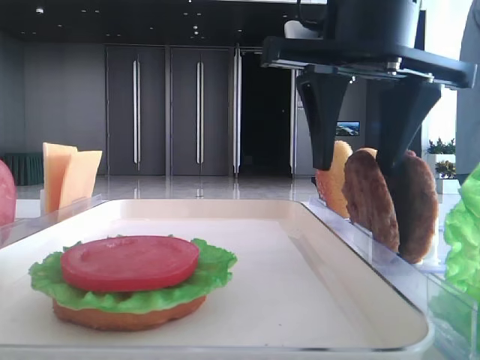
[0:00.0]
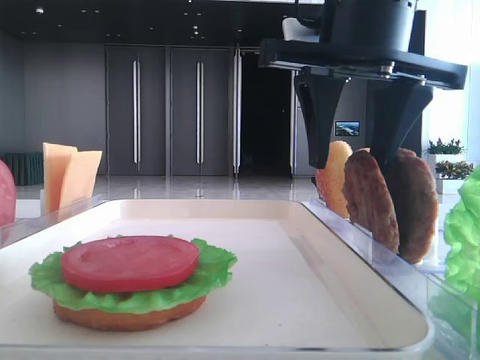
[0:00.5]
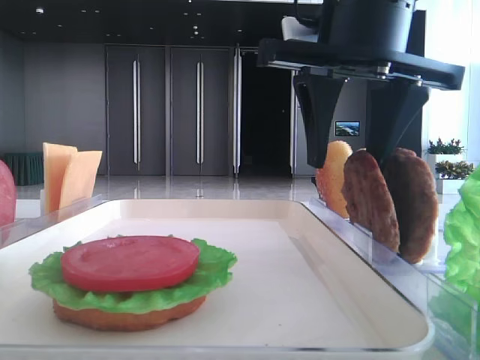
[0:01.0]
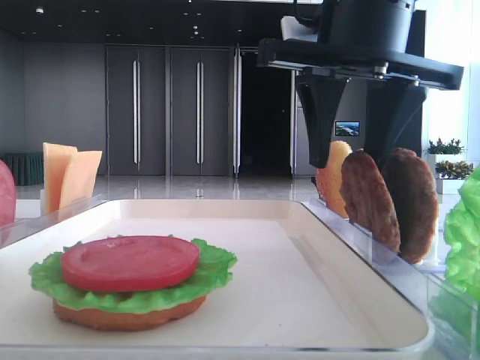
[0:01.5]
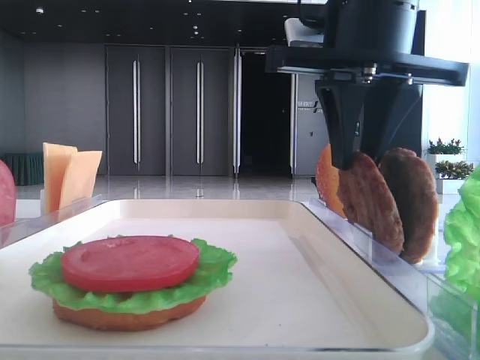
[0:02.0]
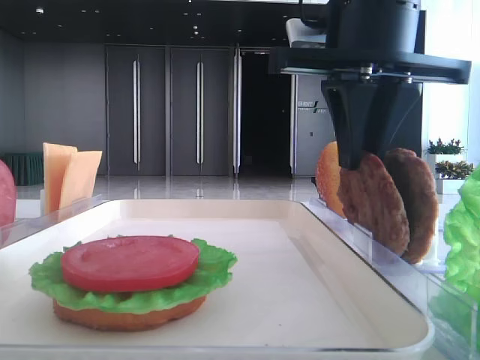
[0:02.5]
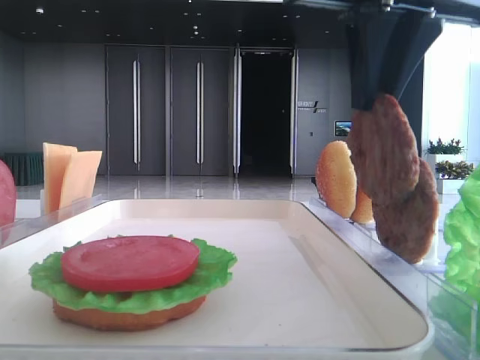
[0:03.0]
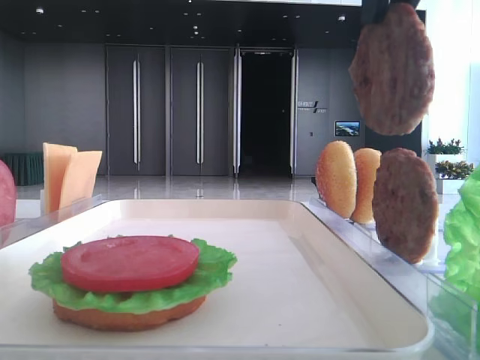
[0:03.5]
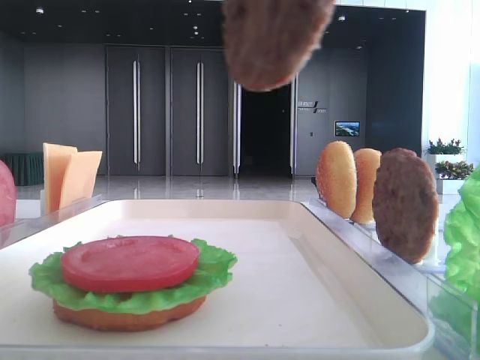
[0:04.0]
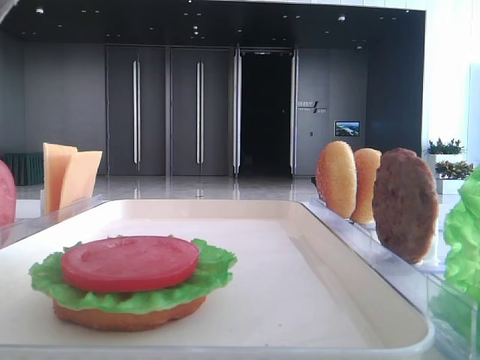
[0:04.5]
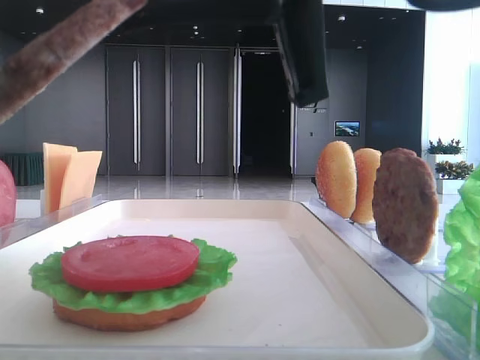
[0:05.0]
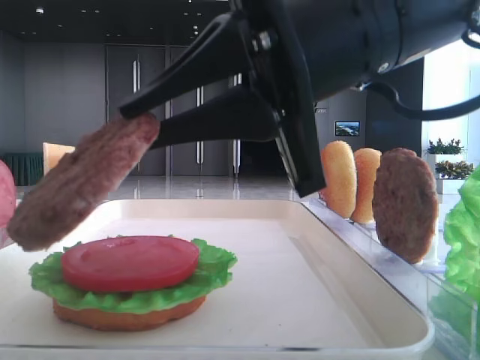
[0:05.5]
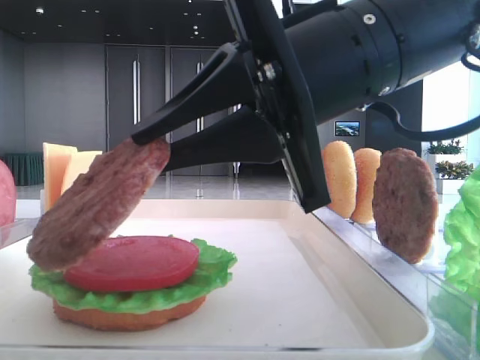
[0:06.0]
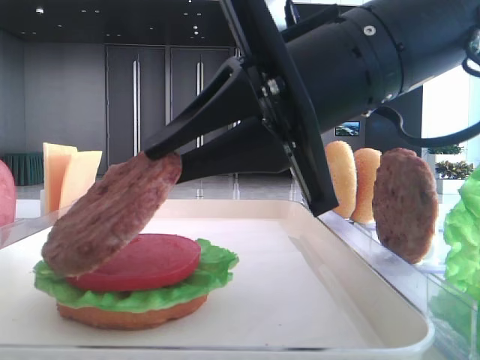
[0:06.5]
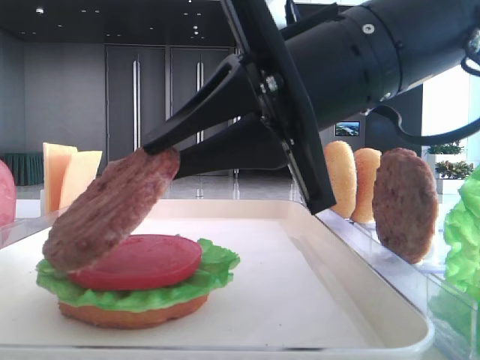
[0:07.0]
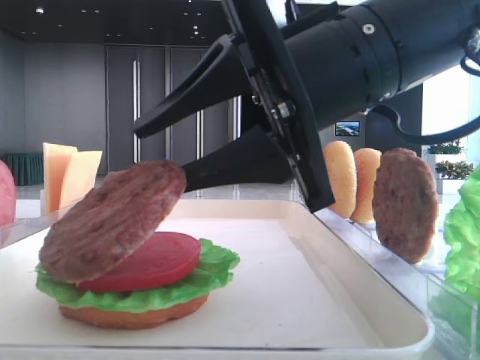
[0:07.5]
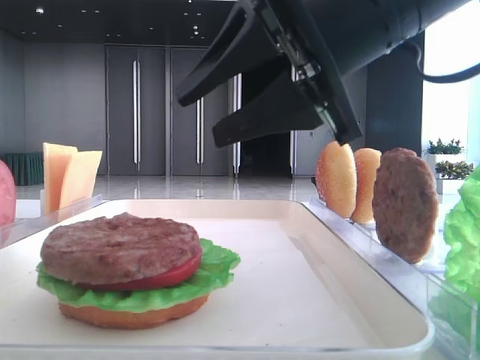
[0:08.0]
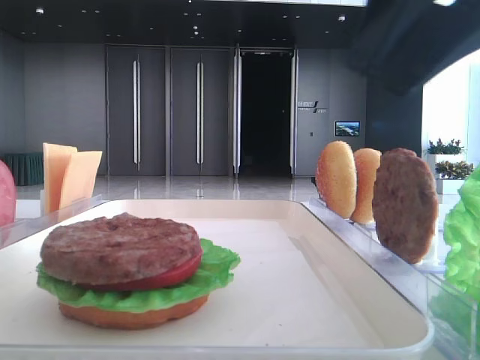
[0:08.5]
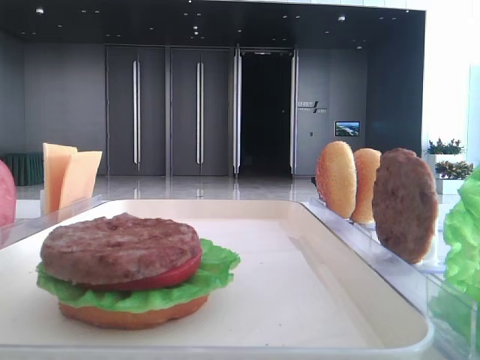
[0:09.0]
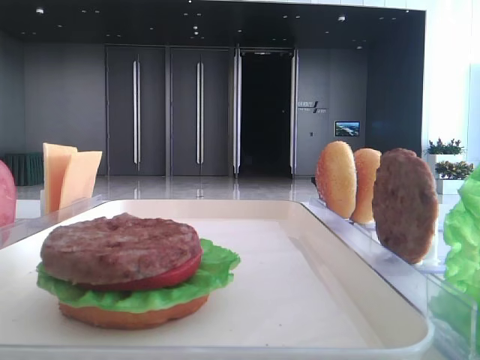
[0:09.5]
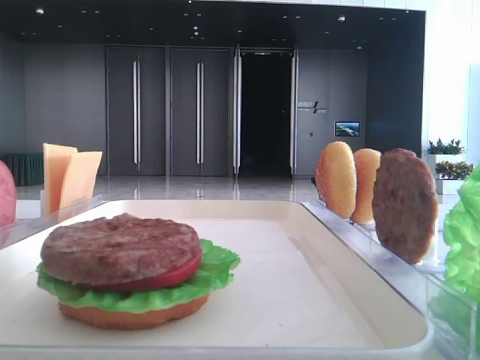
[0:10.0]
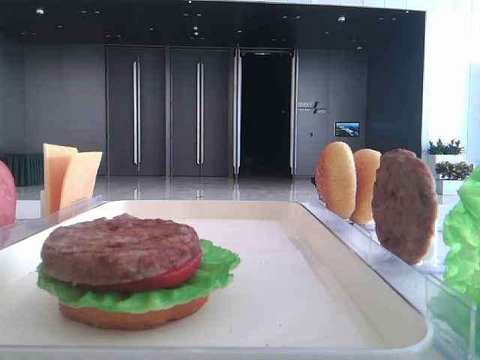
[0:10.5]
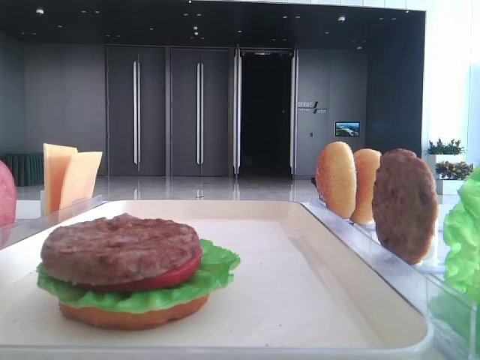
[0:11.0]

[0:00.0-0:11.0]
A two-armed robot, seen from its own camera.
Step, 0:00.0 to 0:02.5: Grab the patty with the right hand.
Step, 0:03.0 to 0:07.5: Place the patty on the tomato slice with the right hand.
0:00.0 to 0:02.0: The right gripper closes.
0:02.0 to 0:03.5: The right gripper travels upward and backward by some 10 cm.
0:03.5 to 0:05.5: The right gripper moves downward, approximately 15 cm.
0:05.5 to 0:07.5: The right gripper opens up.
0:07.5 to 0:09.0: The right gripper moves to the right and upward, roughly 25 cm.

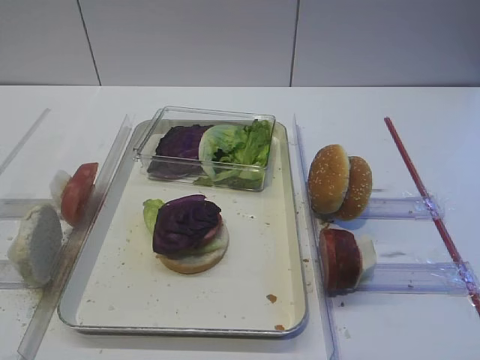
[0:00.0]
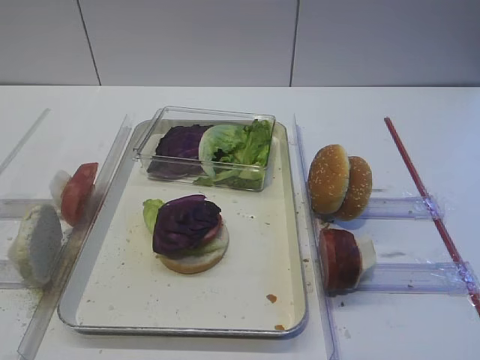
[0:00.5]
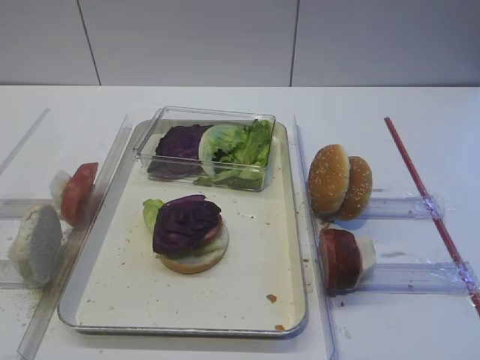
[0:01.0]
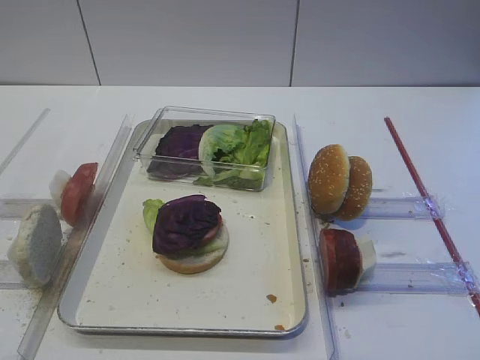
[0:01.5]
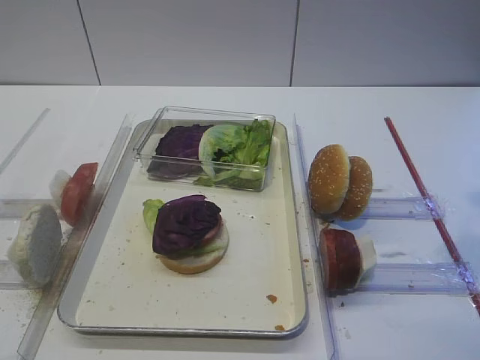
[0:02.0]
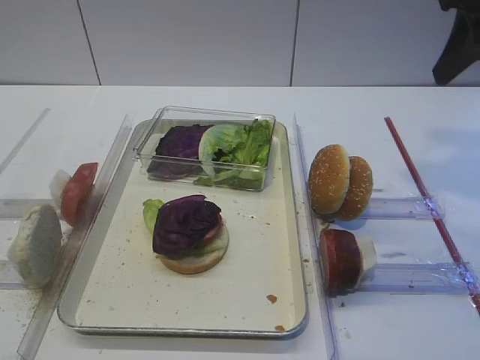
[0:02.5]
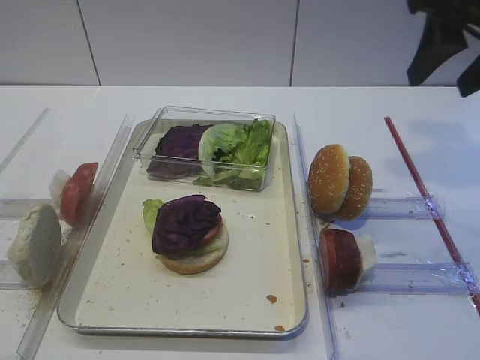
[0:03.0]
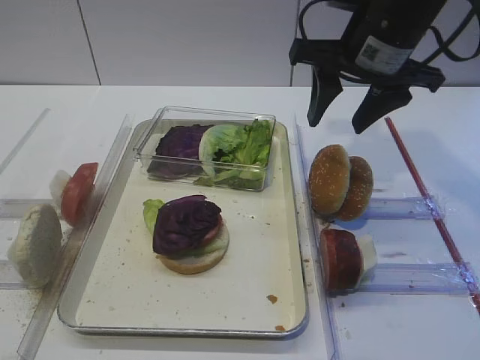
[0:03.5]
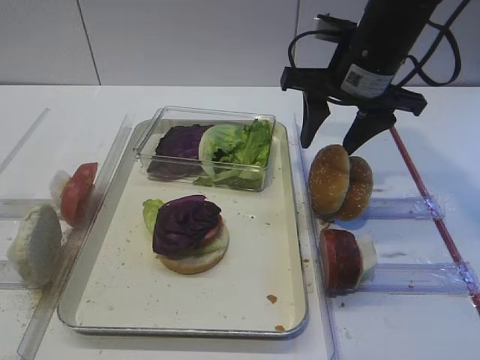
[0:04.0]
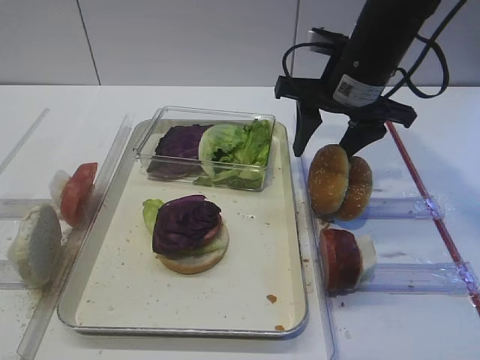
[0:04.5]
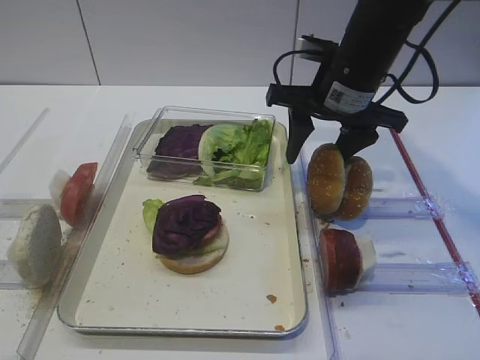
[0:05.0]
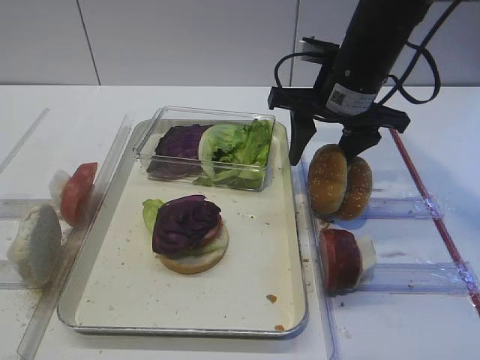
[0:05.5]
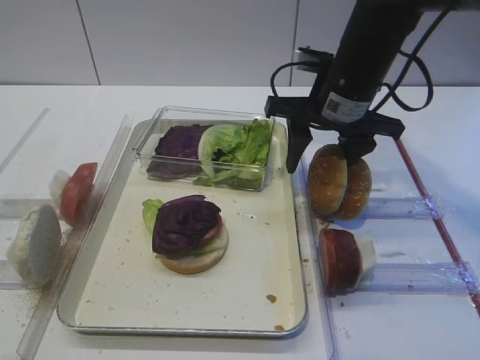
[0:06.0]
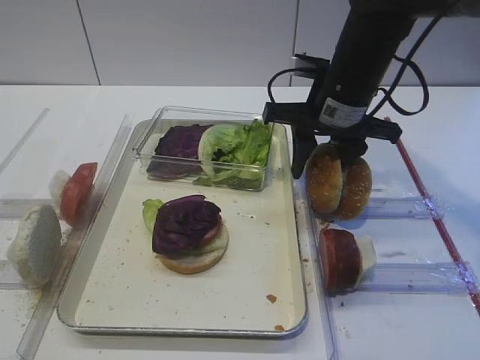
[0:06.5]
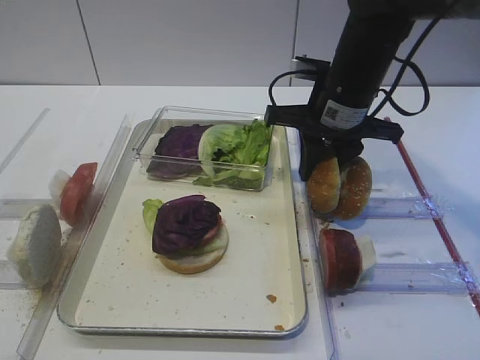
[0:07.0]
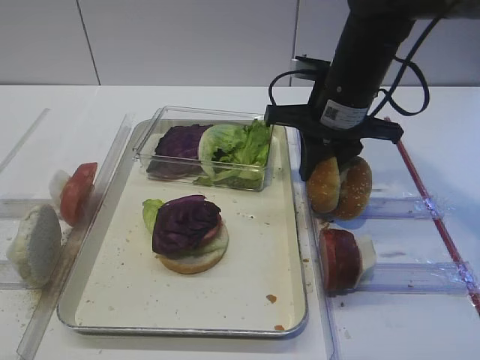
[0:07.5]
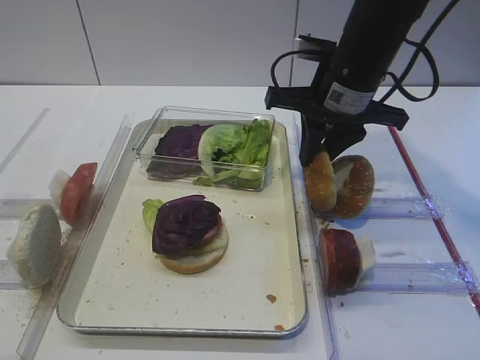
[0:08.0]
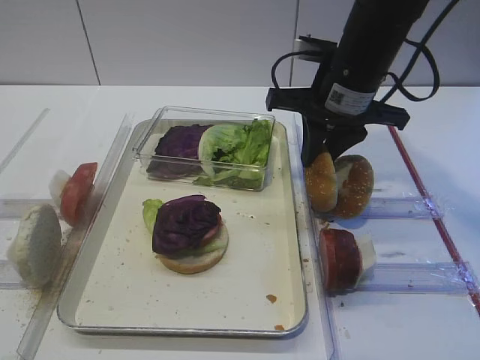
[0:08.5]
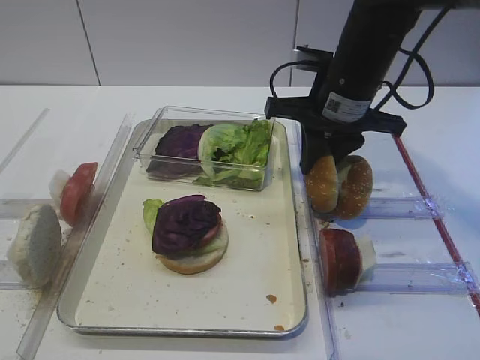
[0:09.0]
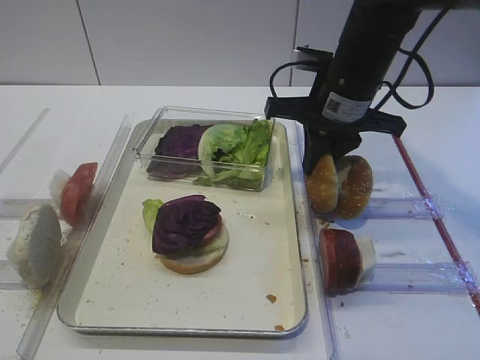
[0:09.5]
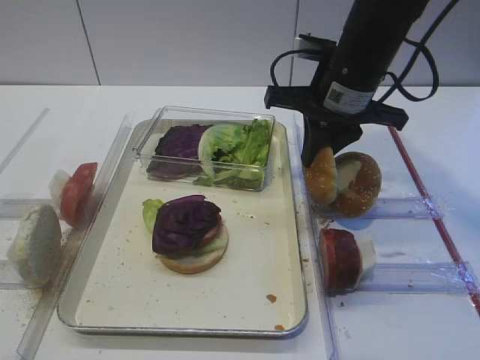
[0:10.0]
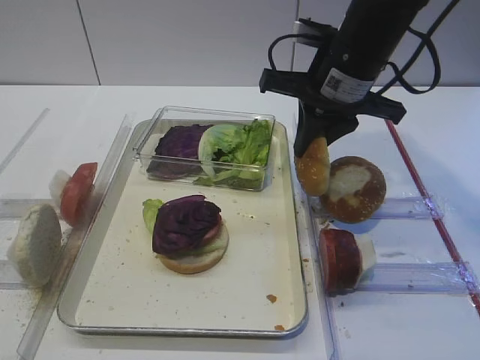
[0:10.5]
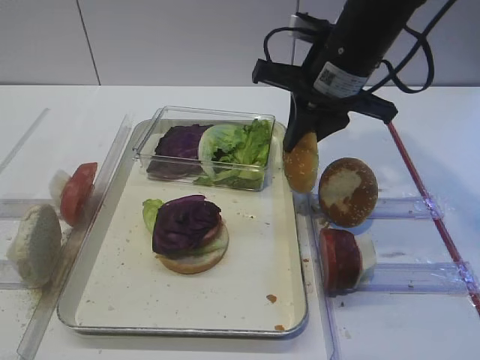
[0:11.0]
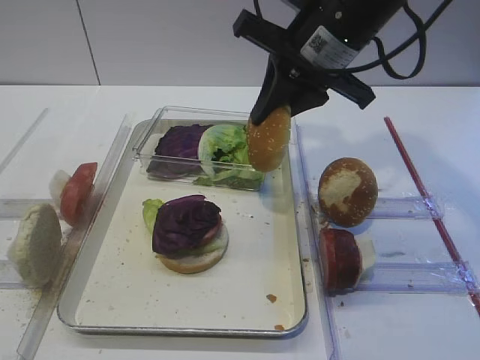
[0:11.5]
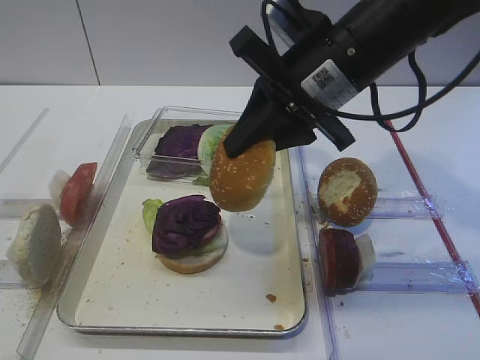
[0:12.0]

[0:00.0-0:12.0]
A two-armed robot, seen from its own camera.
Step, 0:00.0 to 0:11.0: Pick up the hamburger lid with the right gripper.
0:02.0 to 0:04.0: The right gripper heads forward and to the left, covering approximately 25 cm.
0:04.0 to 0:06.0: There are only small adjustments of the grippers.
0:06.0 to 0:08.0: The right gripper closes up.
0:08.0 to 0:10.0: Neither gripper changes place.
0:10.0 to 0:12.0: The right gripper is displaced backward by about 5 cm.

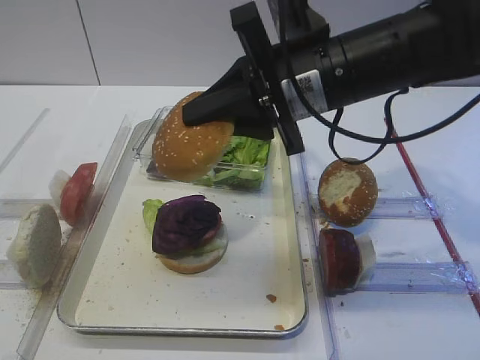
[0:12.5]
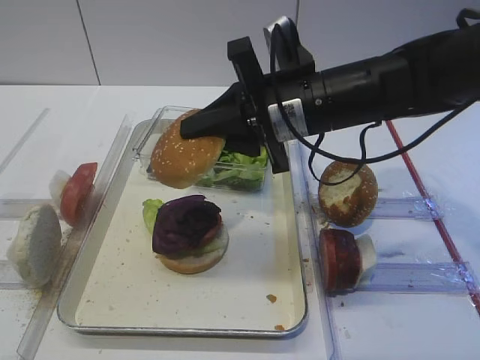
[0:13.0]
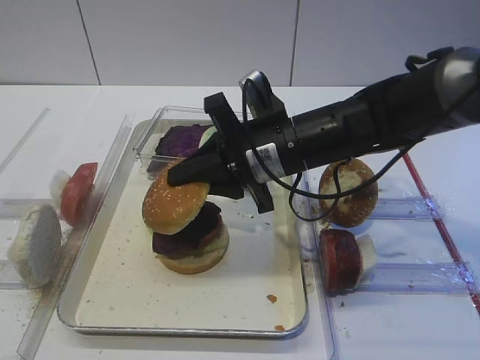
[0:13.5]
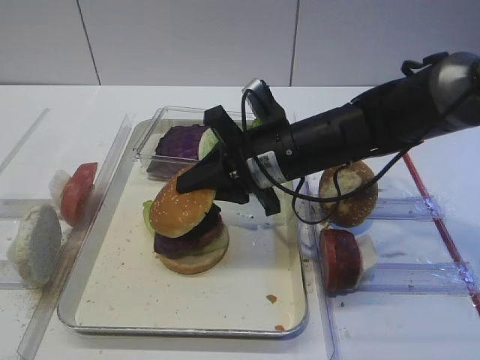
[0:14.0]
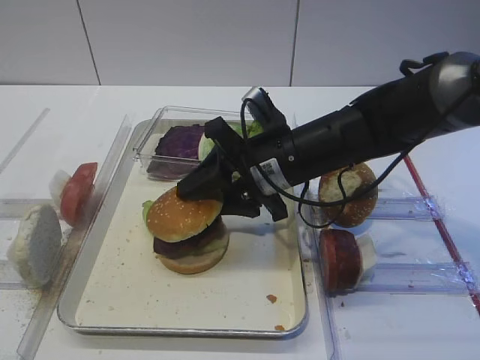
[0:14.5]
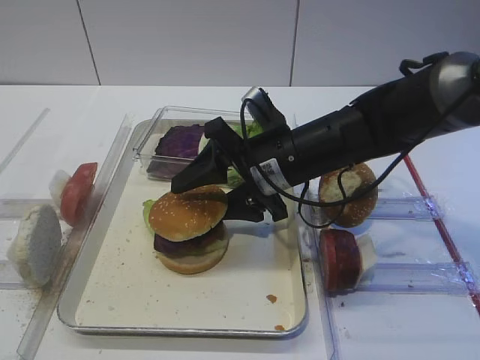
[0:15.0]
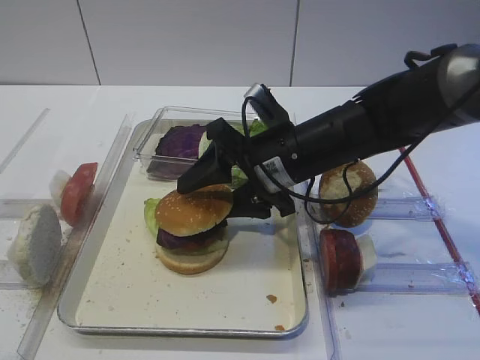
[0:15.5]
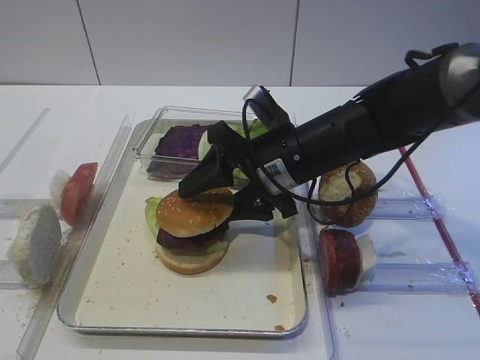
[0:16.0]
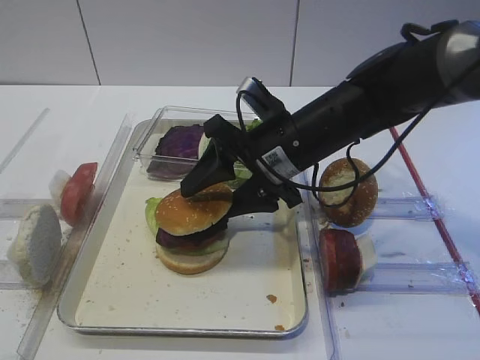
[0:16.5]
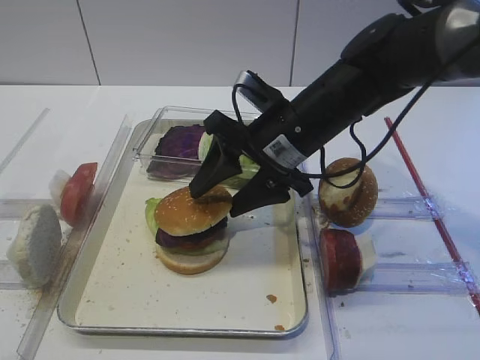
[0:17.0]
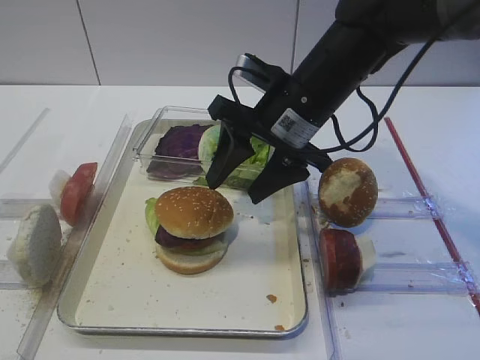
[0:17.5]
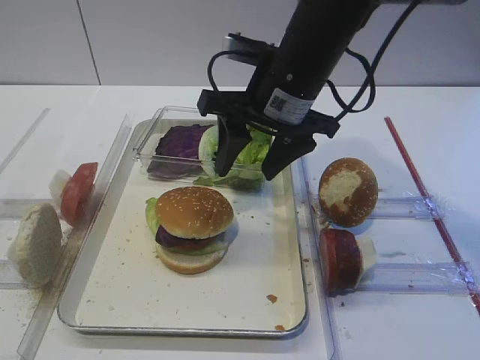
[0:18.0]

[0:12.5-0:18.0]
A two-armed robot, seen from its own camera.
Step, 0:12.5 to 0:17.5: Place the hamburger lid on the cheese slice with the right gripper.
0:12.5 to 0:14.5: The right gripper goes roughly 10 cm downward, and opens.
0:14.5 to 0:16.0: The right gripper opens its fingers.
0:16.0 to 0:18.0: The right gripper shifts some 10 cm upward.
